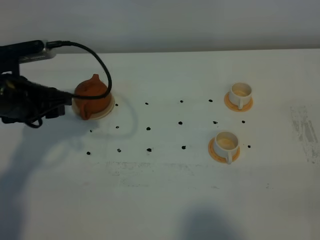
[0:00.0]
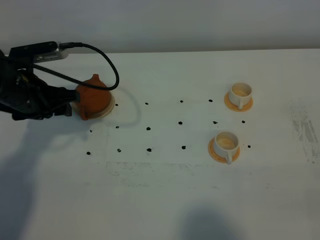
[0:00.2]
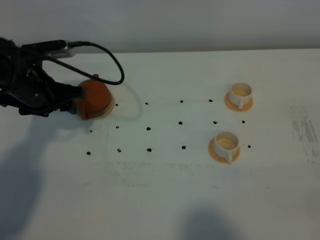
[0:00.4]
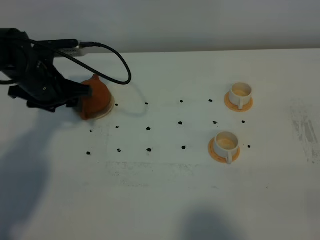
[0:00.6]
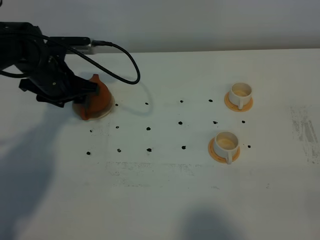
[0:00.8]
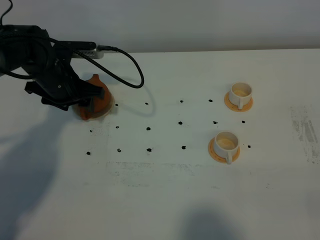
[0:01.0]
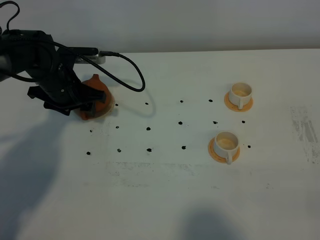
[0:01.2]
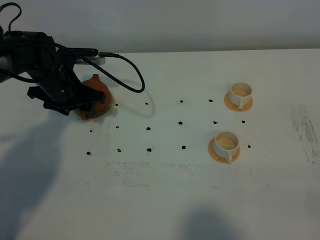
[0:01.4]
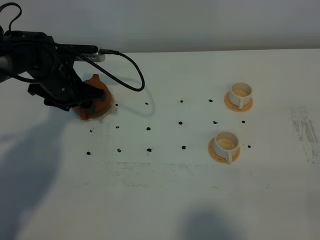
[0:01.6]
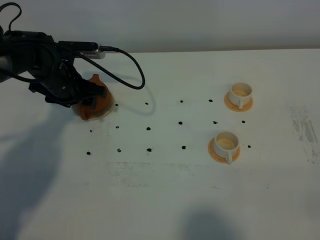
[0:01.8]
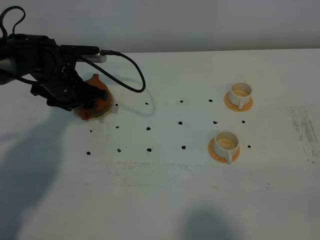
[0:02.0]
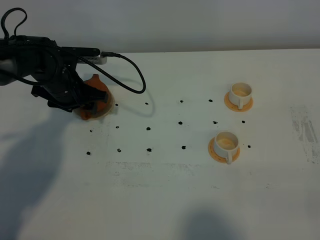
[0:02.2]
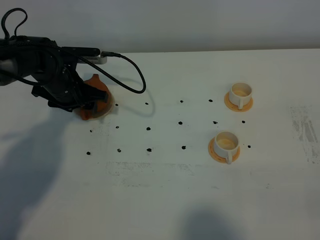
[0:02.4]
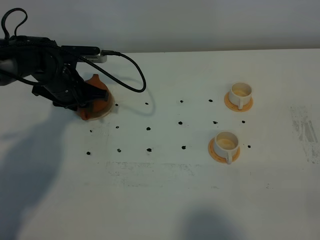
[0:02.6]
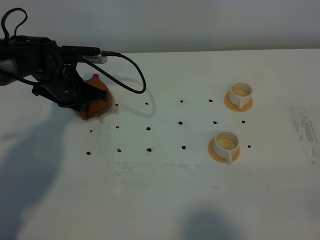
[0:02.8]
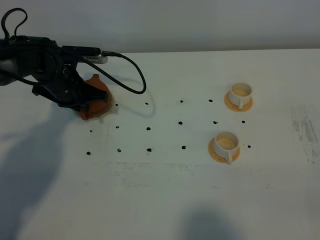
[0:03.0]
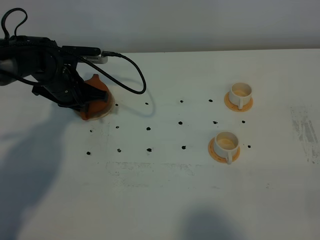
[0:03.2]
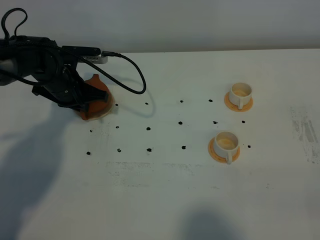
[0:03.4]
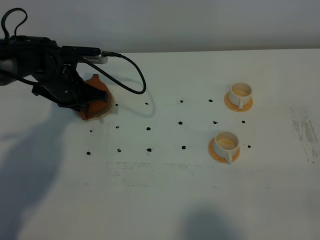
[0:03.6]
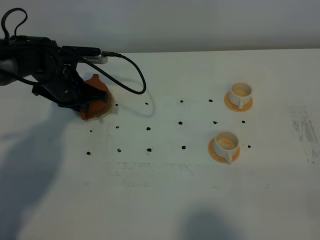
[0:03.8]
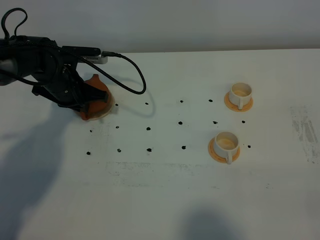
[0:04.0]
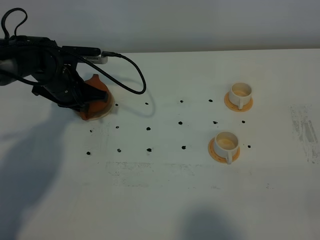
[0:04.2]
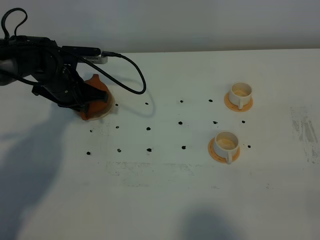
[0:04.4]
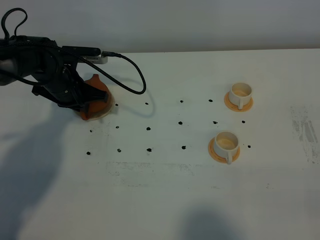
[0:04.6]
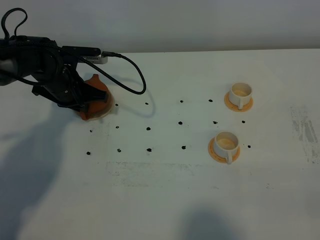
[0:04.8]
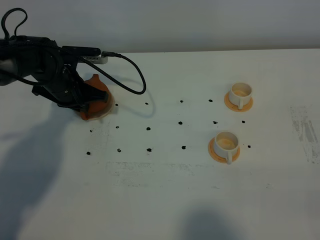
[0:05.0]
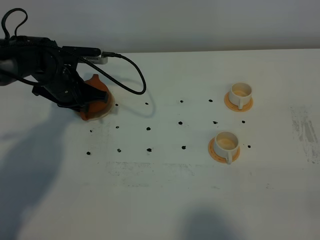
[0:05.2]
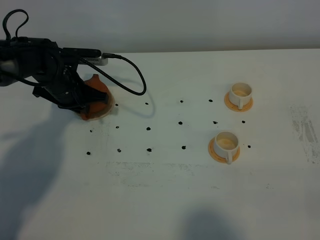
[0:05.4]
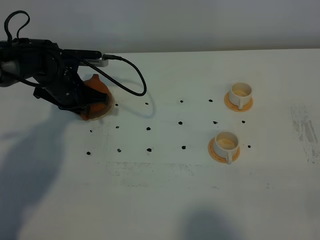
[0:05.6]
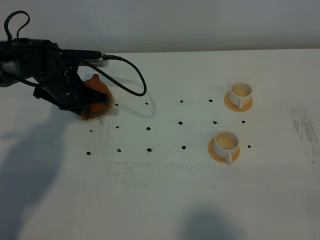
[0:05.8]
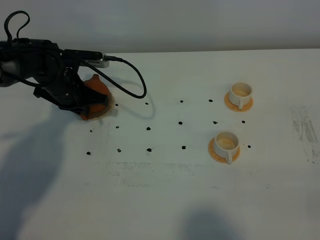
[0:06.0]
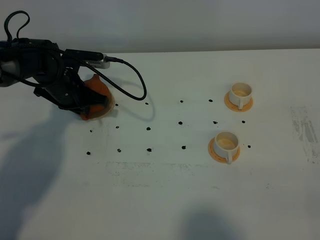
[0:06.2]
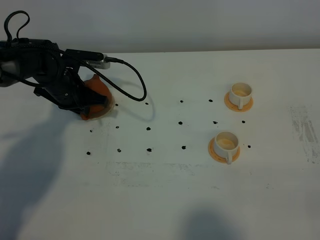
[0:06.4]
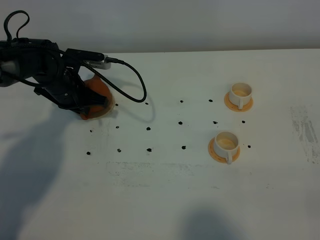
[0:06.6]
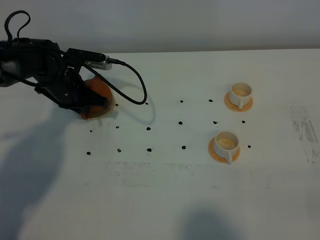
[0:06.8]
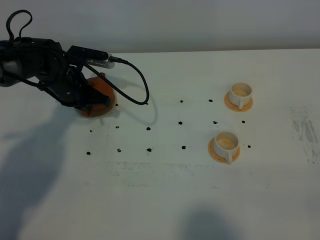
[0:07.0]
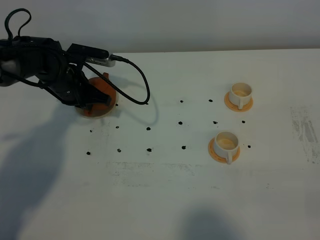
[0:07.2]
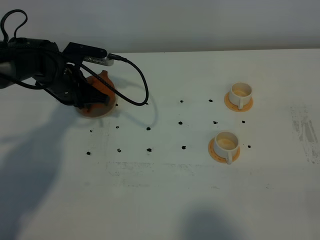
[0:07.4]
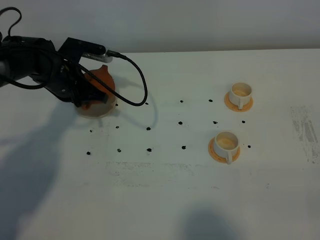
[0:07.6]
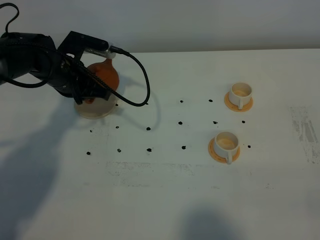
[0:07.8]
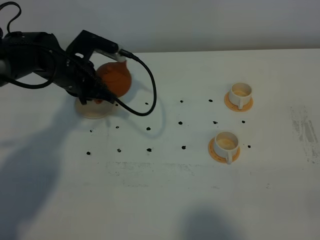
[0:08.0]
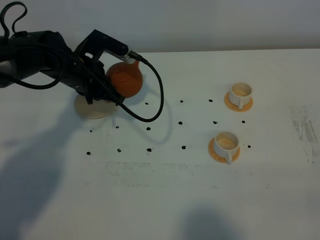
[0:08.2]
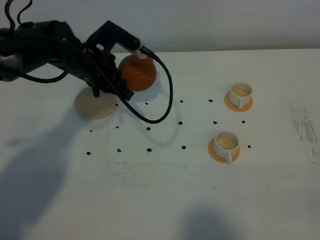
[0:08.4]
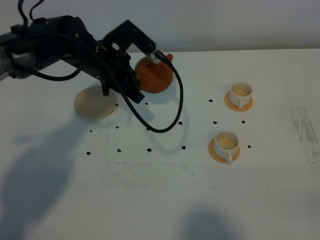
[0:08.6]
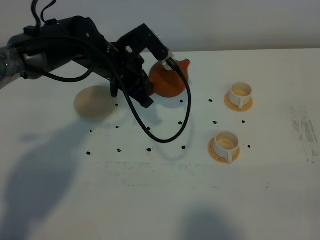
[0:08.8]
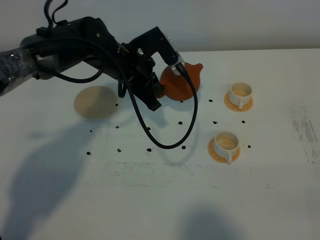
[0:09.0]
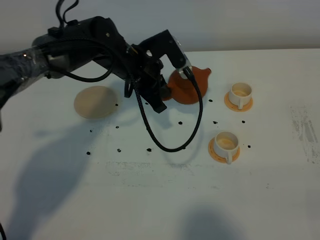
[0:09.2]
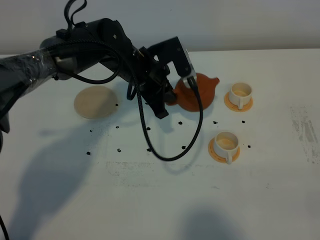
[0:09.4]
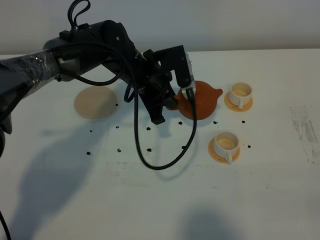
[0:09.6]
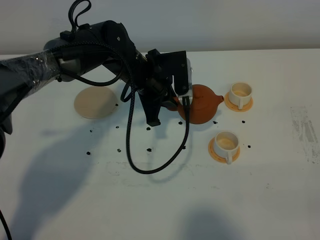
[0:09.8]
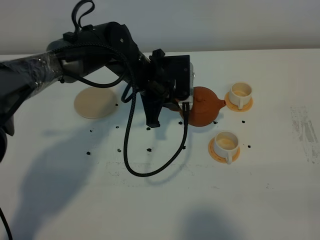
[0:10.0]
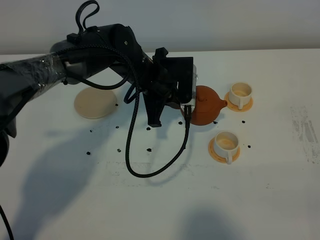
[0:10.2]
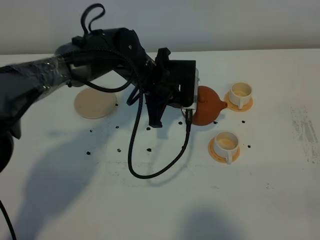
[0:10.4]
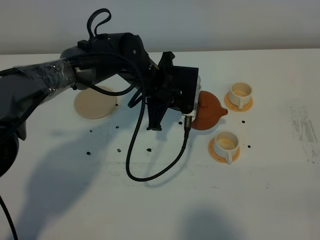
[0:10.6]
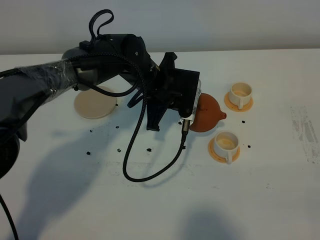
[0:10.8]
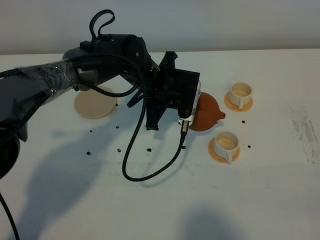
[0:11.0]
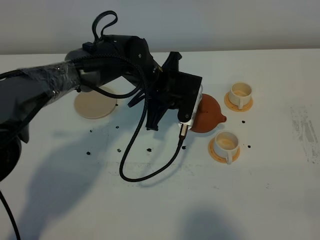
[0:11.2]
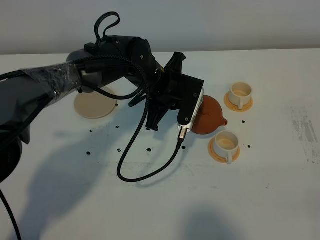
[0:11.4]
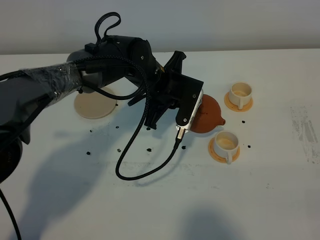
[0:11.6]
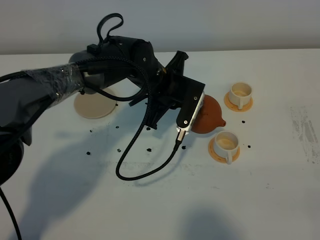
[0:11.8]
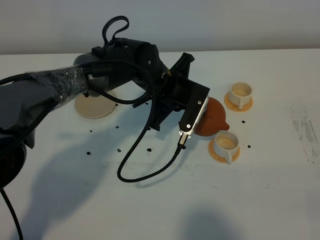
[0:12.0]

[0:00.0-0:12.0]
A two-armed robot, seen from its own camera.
Task of the whole recording: grasp the brown teapot and pour the tea into the two white teacups one by one, put the brown teapot back in its original place.
Step, 0:00.0 to 0:07.4: Pick up the teapot with the left gripper.
0:00.0 to 0:01.6: The left gripper is displaced forward and downward by some 10 cm.
0:01.6 to 0:03.0: The left gripper closes its fingers.
0:03.0 to 0:06.0: Both grippers stay put.
0:06.0 to 0:07.6: The grippers make only small movements.
0:07.6 to 0:09.0: The left gripper heads to the right, covering roughly 10 cm.

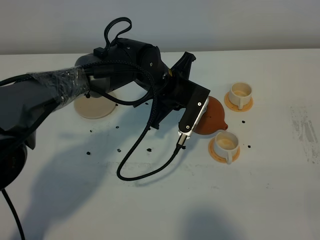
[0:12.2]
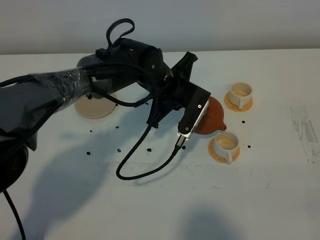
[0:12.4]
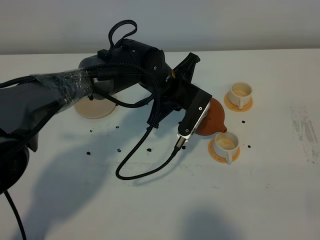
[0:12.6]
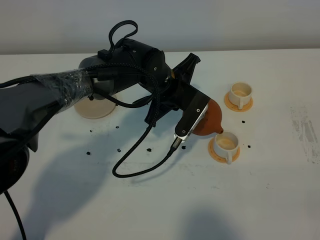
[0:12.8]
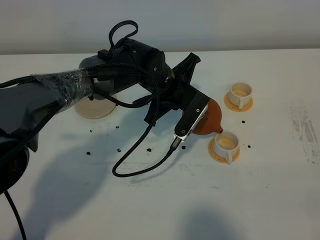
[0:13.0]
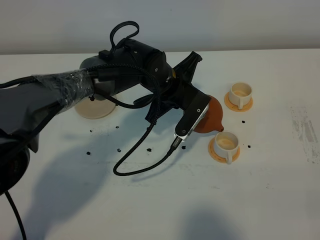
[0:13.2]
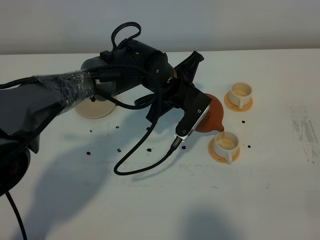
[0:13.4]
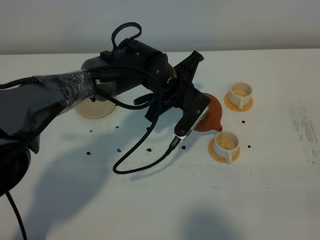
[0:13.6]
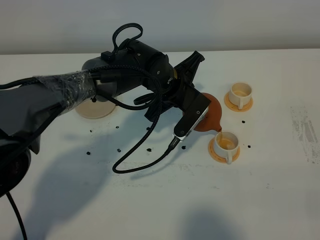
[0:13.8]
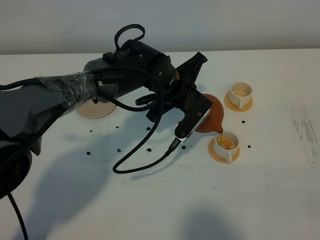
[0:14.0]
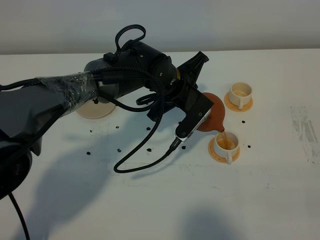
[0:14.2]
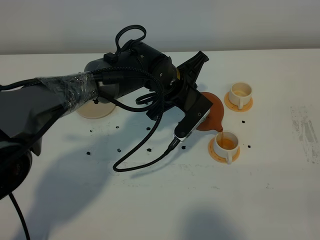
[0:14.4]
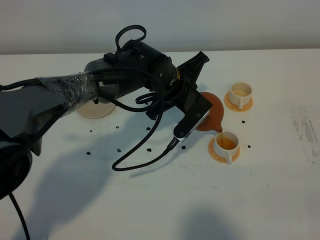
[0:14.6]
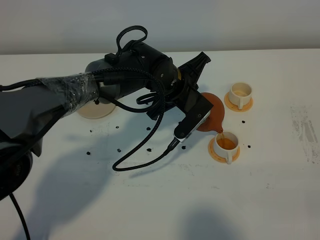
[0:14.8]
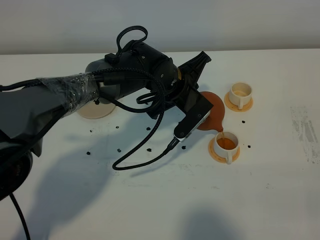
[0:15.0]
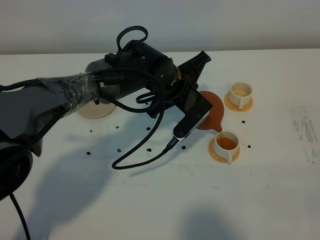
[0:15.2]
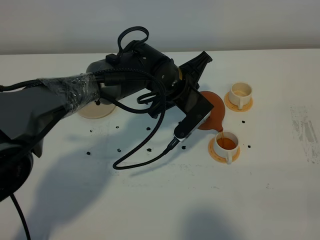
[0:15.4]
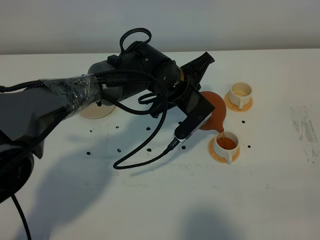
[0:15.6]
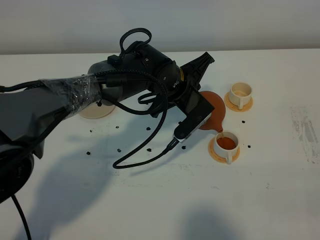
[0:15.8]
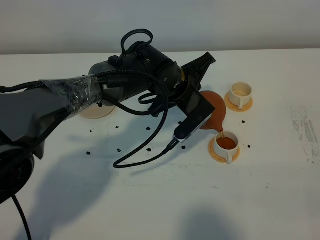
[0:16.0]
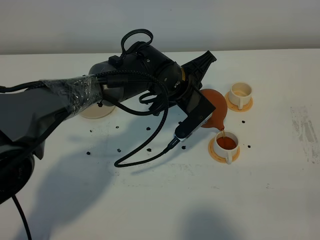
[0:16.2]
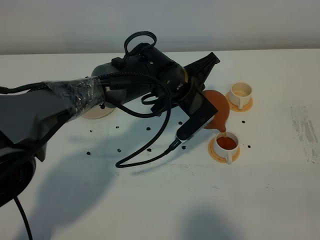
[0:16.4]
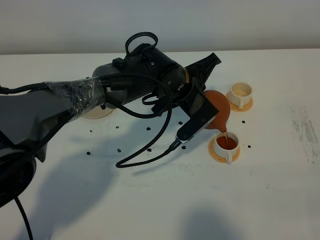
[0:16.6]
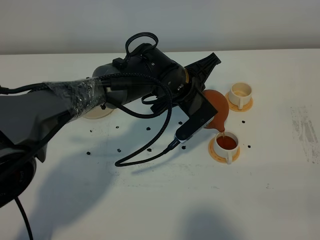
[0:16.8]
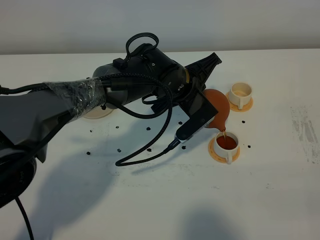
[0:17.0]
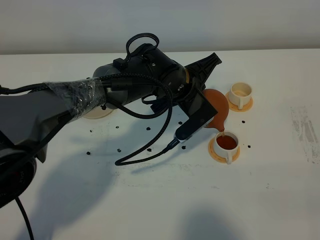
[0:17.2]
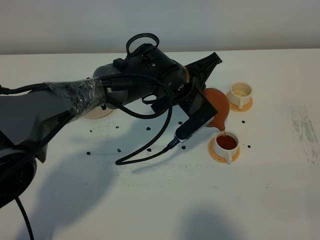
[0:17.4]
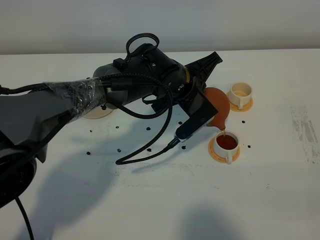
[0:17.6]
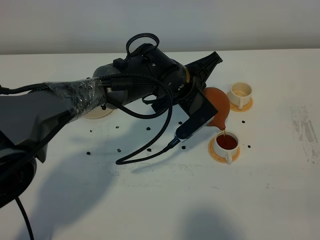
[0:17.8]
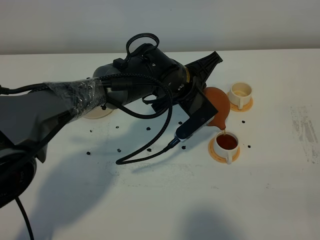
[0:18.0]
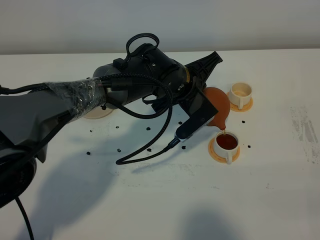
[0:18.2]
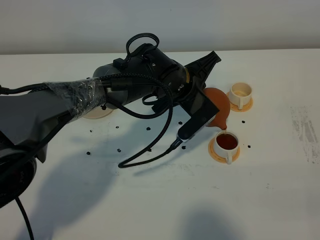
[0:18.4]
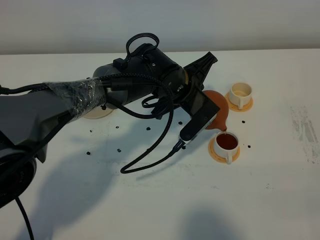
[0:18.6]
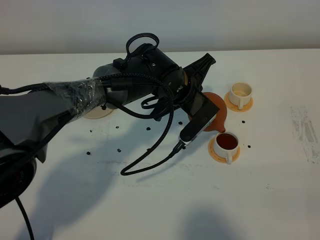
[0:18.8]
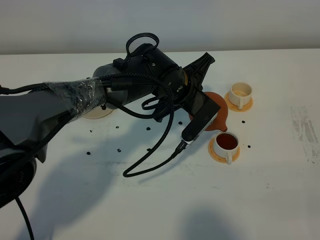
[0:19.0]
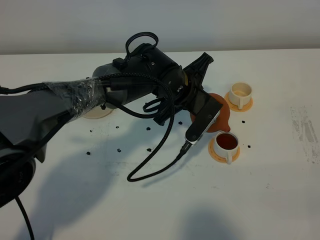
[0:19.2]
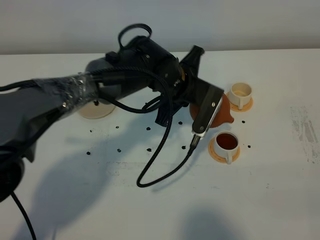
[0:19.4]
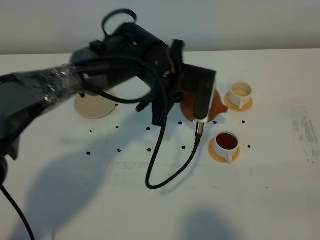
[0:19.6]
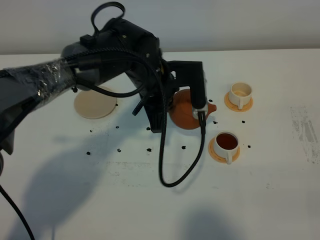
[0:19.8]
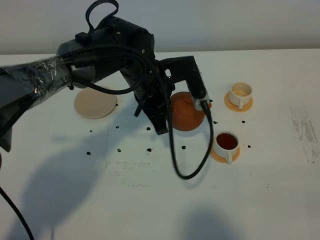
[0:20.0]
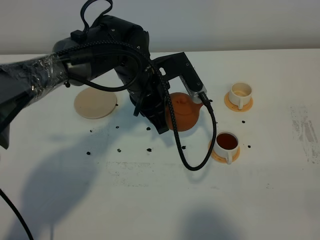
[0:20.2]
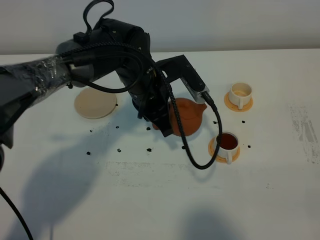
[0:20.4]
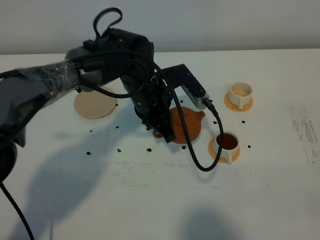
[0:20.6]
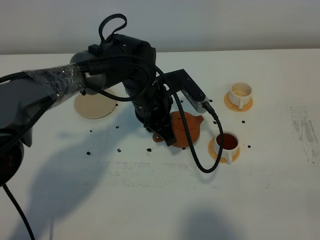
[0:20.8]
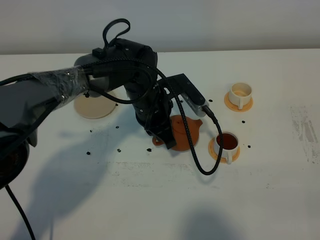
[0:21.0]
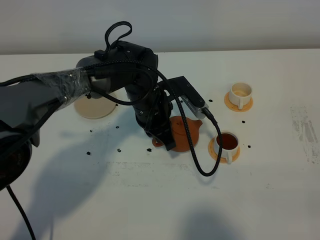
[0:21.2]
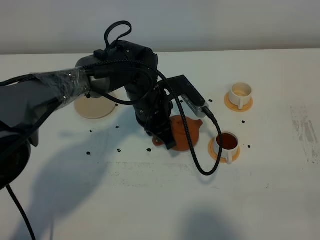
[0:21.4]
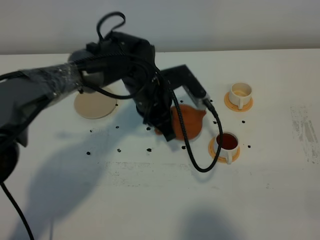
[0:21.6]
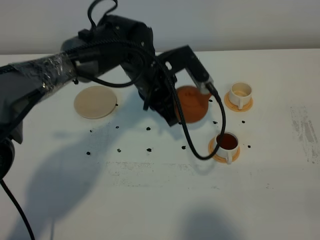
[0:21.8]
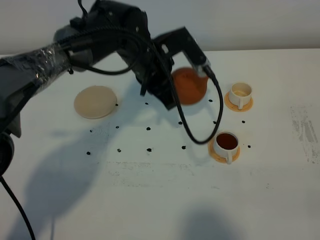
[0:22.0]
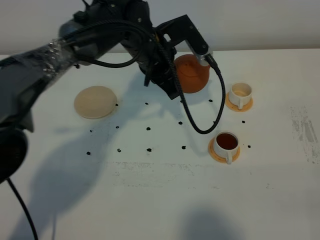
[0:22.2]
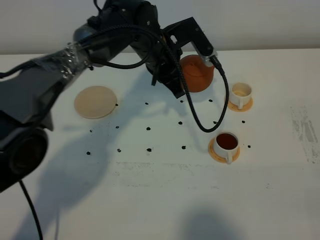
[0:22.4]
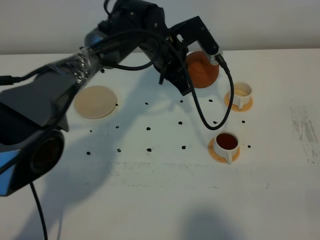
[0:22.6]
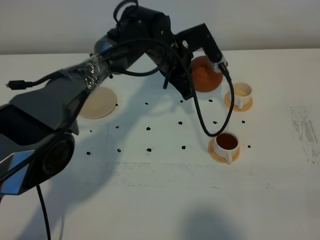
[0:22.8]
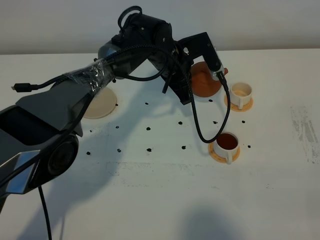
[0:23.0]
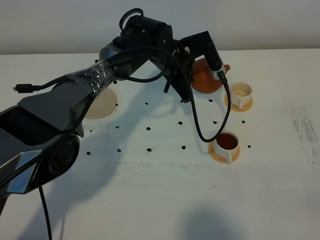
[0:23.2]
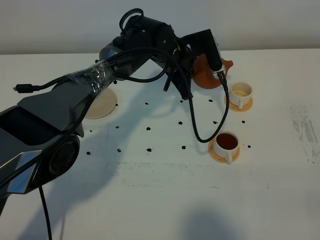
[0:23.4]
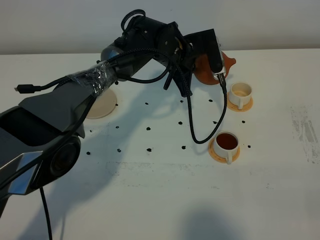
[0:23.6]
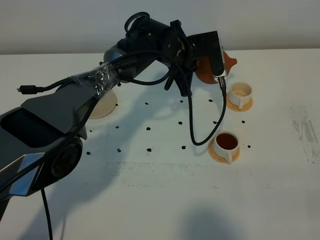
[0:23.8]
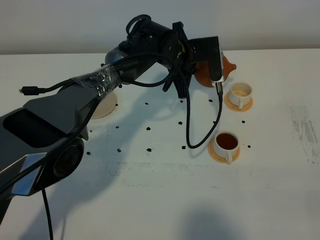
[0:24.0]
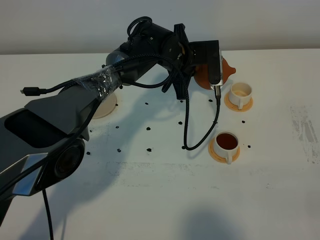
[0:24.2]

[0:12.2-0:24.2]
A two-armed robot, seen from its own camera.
Task of the whole recording: grasp the brown teapot and pour the tea into the two white teacups one by one, put the brown teapot back in its original place.
0:12.2 to 0:13.8: There are only small adjustments of the grippers.
0:13.8 to 0:16.6: The grippers make only small movements.
0:16.6 to 0:18.2: The two grippers keep their place.
0:18.2 to 0:19.8: The left gripper moves roughly 5 cm.
0:19.8 to 0:21.2: The left gripper goes approximately 5 cm downward.
0:21.2 to 0:22.6: The left gripper is displaced forward and upward by approximately 10 cm.
